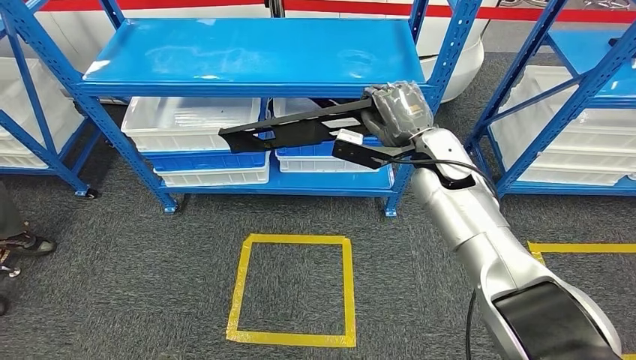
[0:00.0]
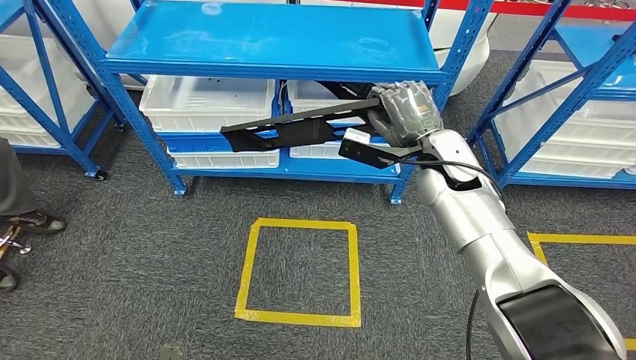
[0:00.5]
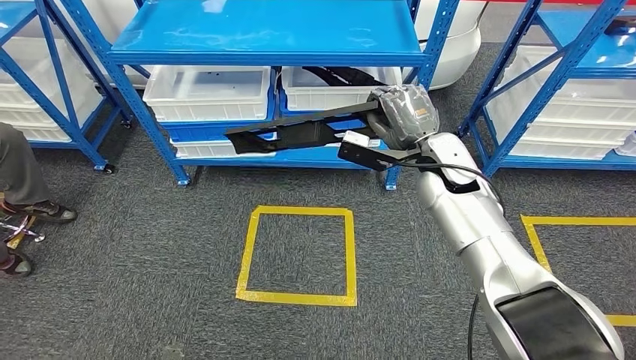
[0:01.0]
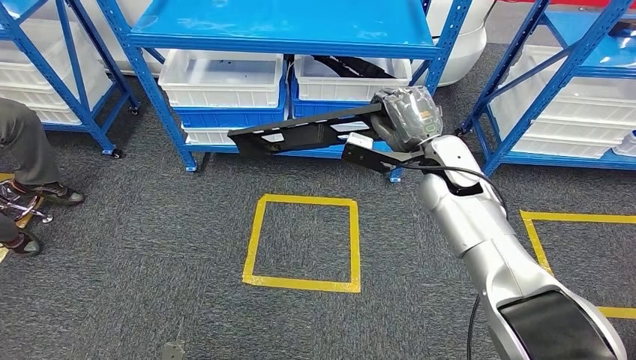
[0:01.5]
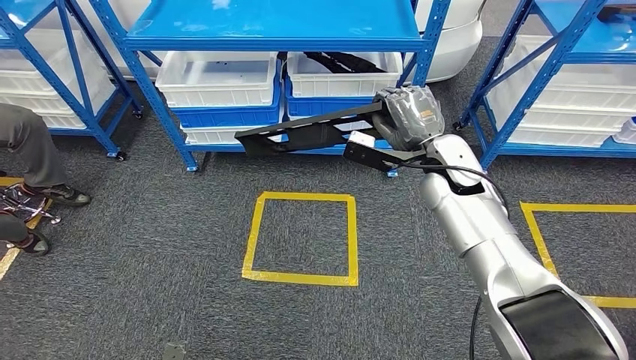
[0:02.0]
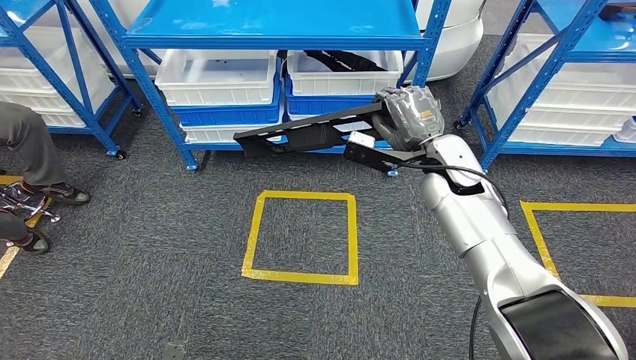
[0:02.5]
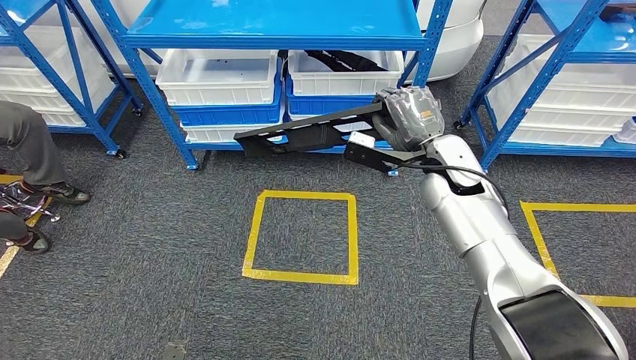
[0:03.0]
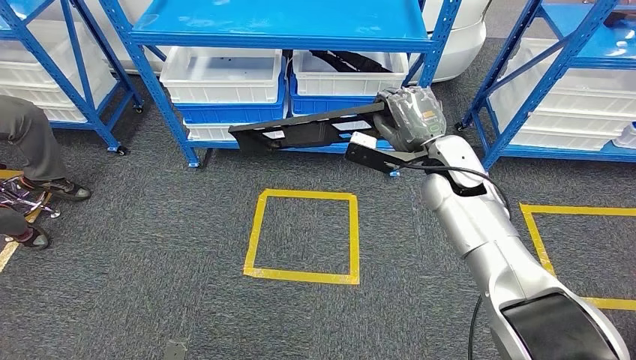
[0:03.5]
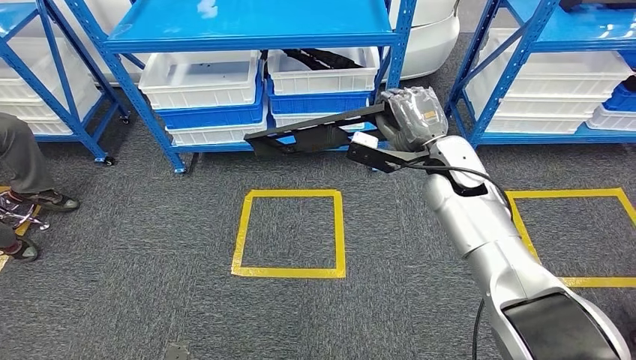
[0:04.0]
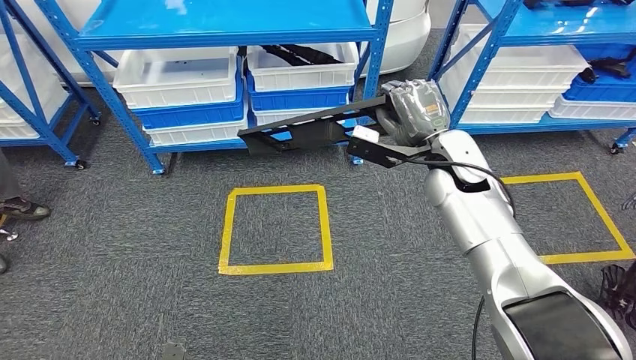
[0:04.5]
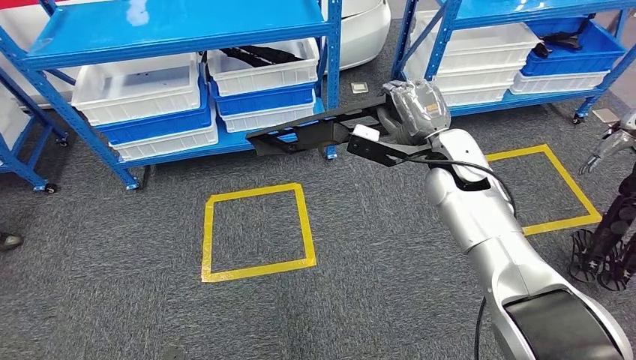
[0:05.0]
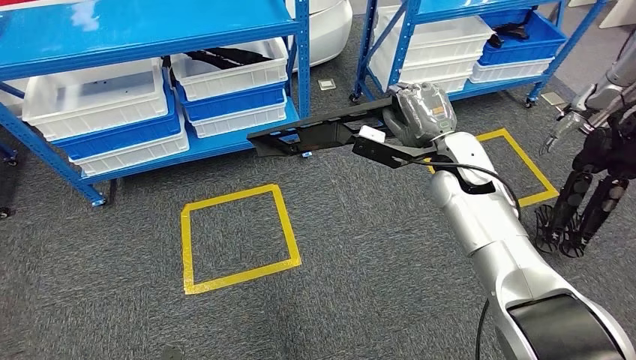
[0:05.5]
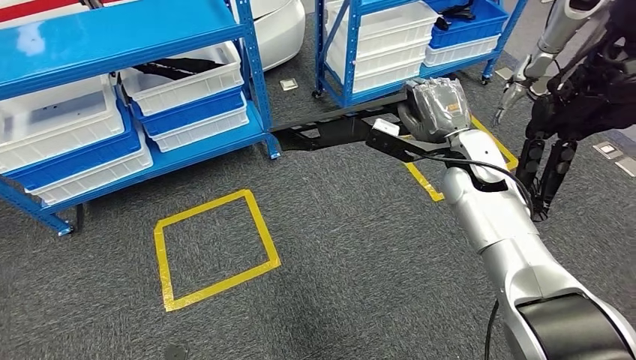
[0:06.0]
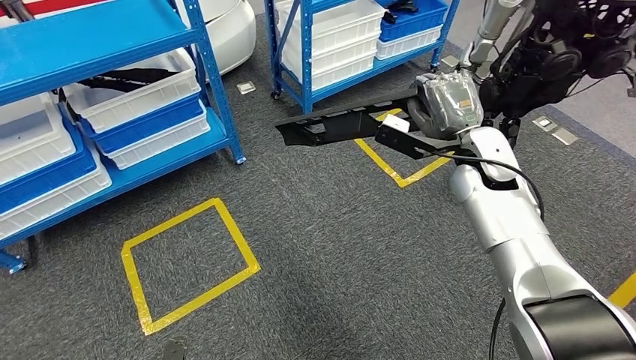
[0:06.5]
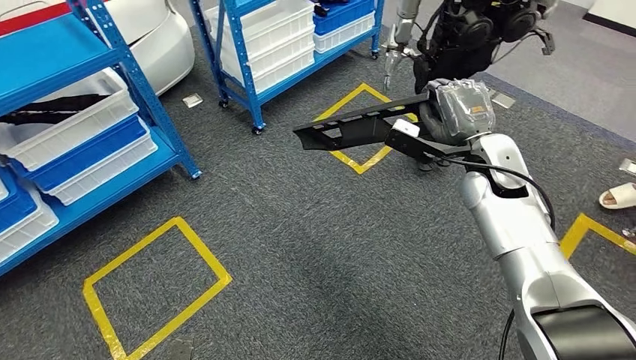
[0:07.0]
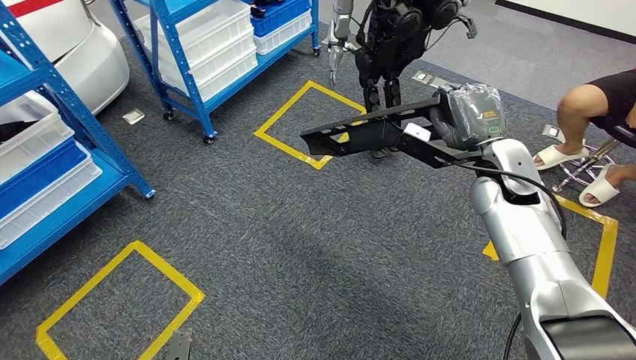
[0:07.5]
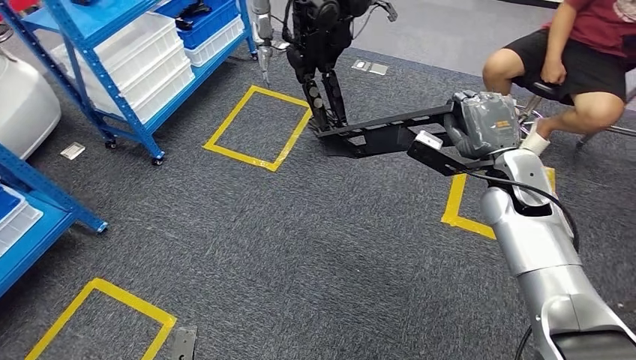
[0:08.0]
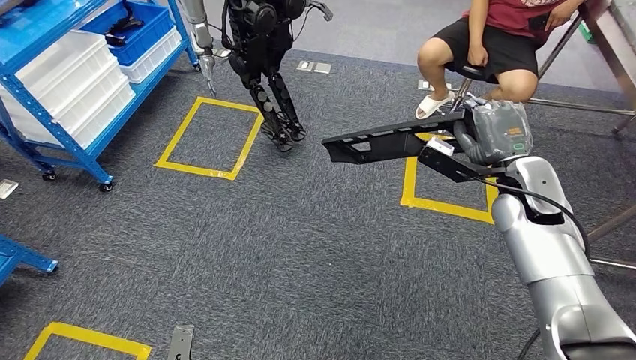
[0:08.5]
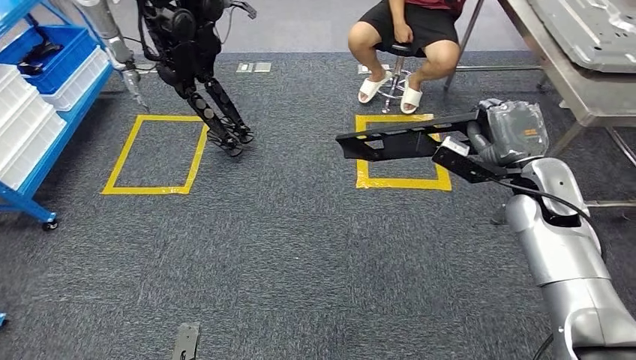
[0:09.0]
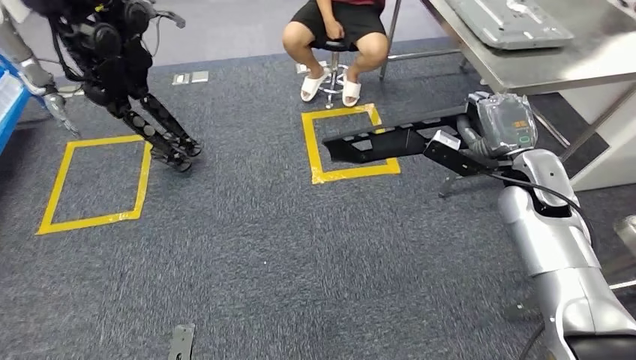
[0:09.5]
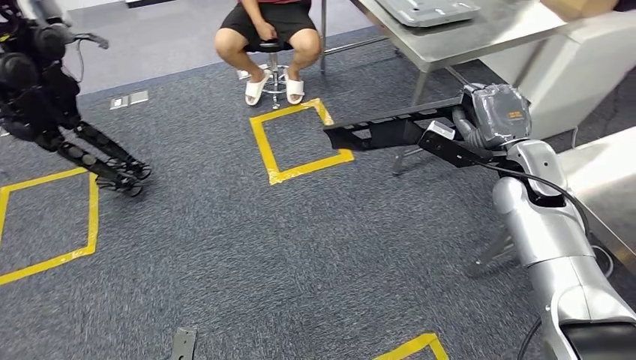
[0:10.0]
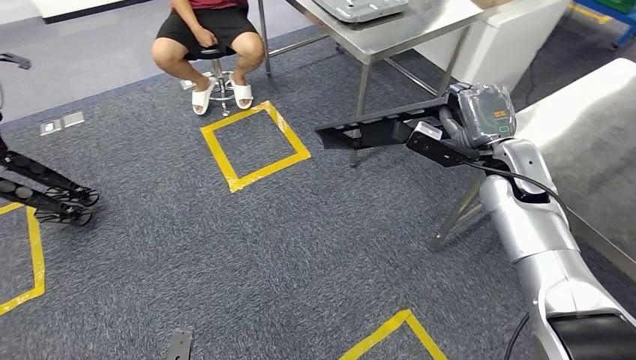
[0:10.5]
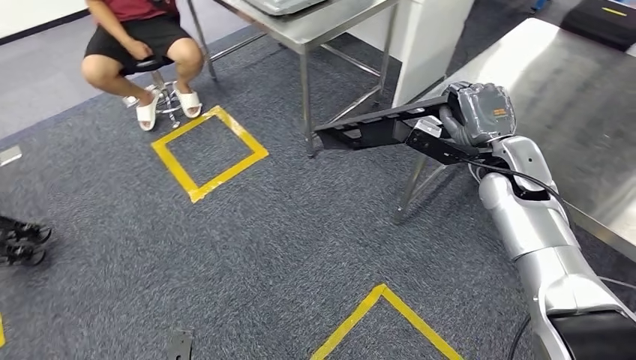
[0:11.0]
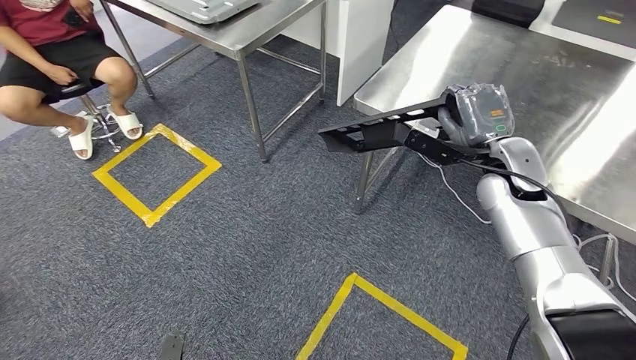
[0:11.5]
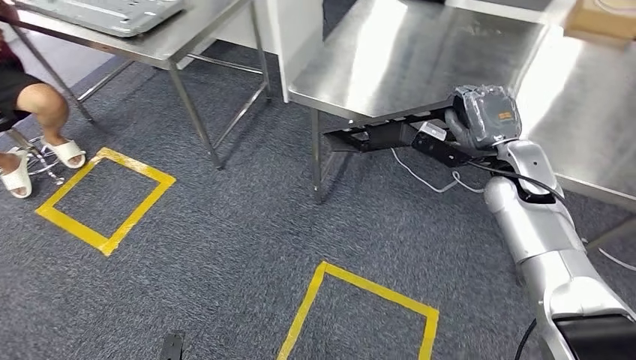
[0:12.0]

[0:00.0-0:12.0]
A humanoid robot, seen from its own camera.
Step, 0:00.0 to 0:02.0: Pick up the large material from the shelf.

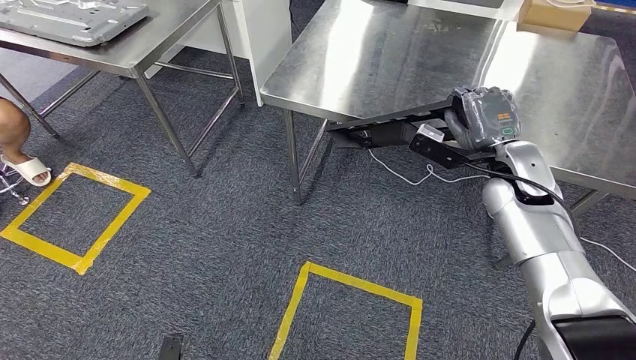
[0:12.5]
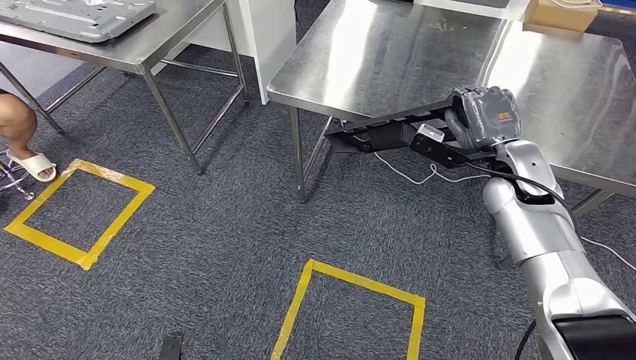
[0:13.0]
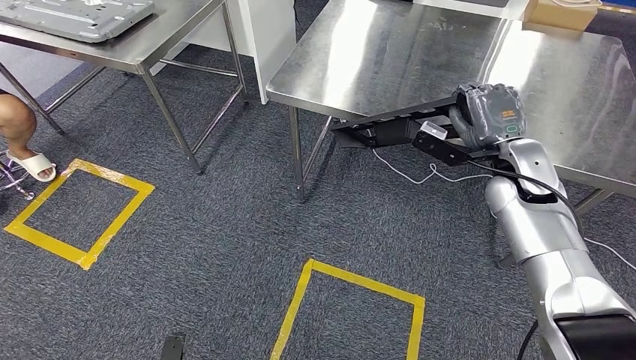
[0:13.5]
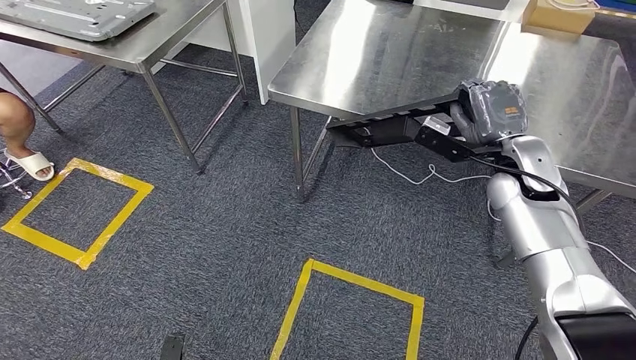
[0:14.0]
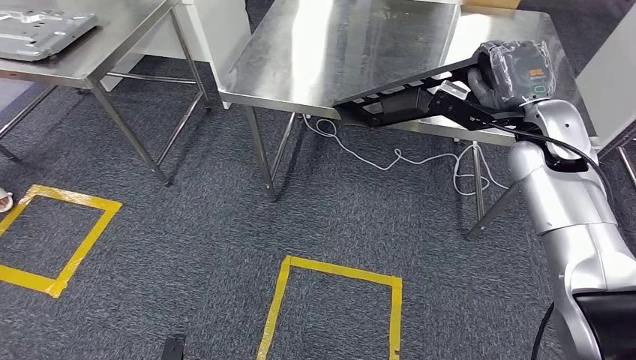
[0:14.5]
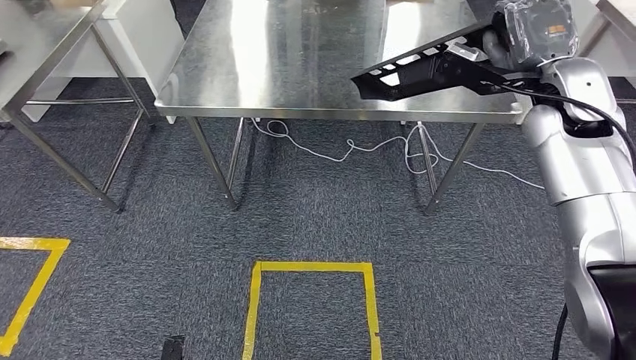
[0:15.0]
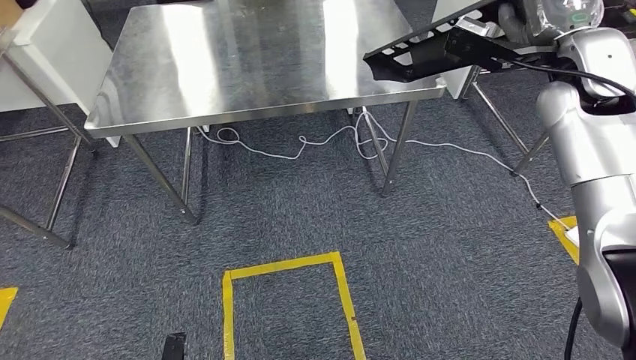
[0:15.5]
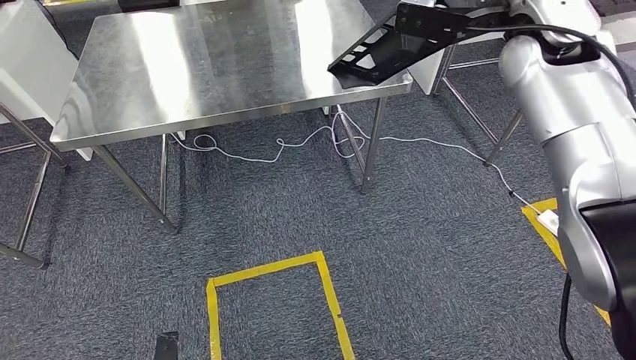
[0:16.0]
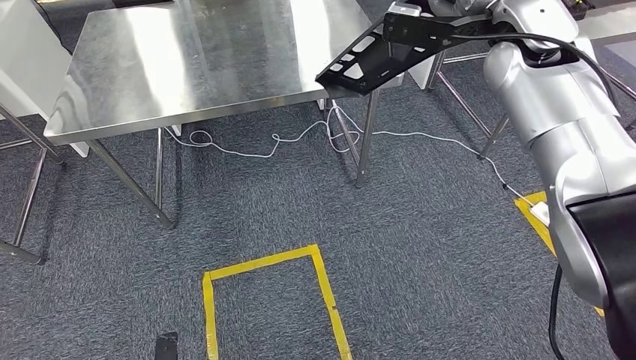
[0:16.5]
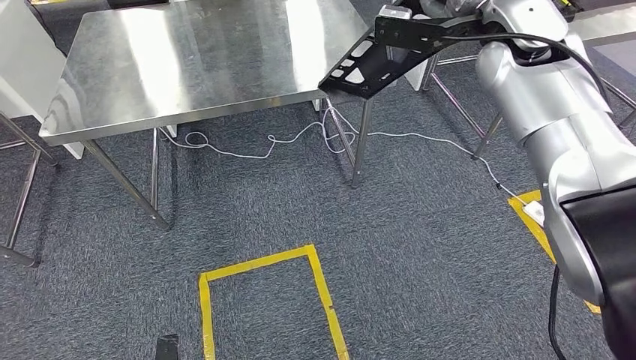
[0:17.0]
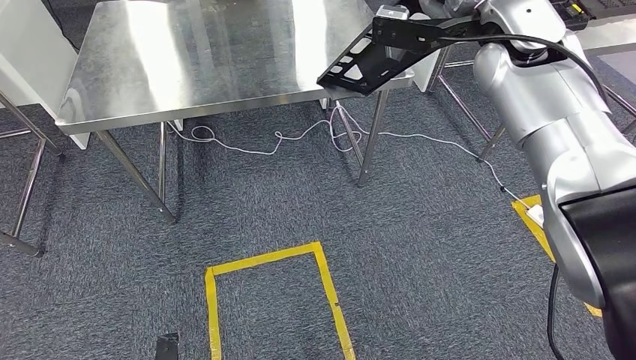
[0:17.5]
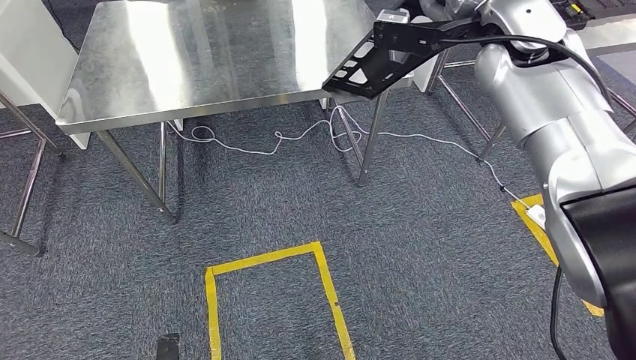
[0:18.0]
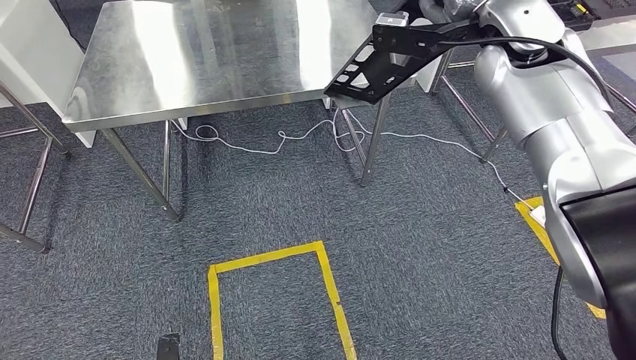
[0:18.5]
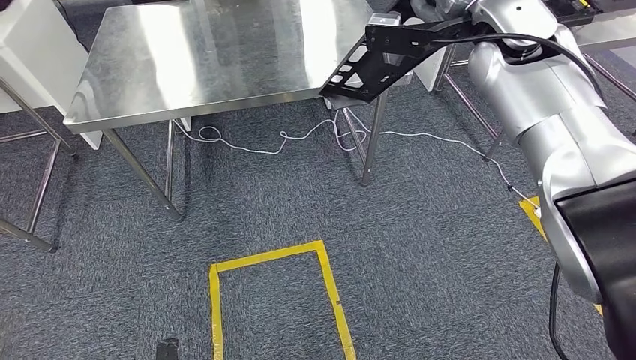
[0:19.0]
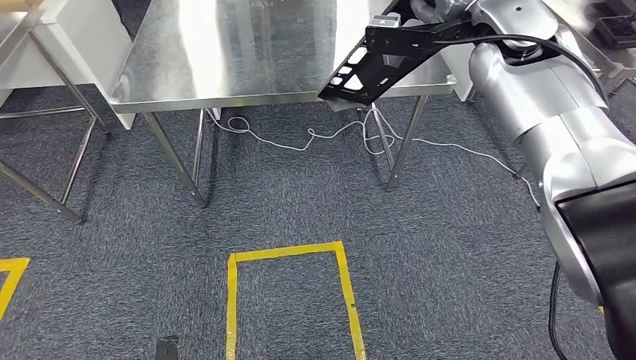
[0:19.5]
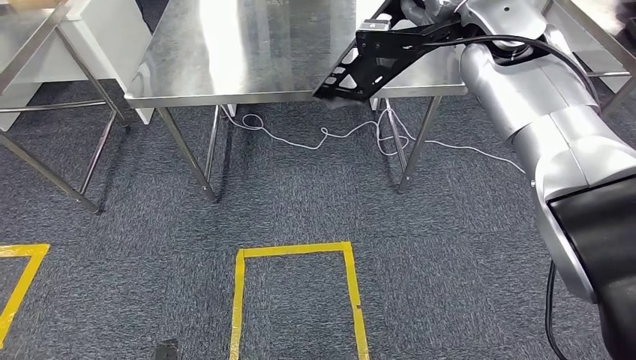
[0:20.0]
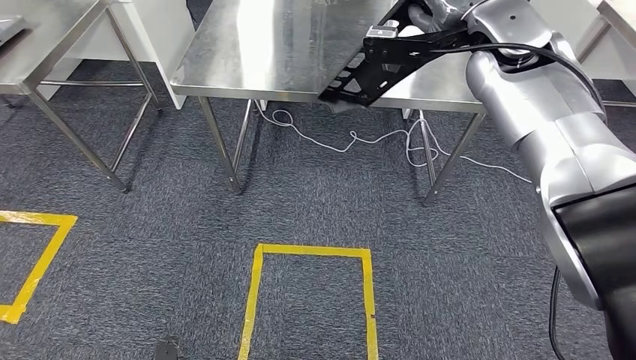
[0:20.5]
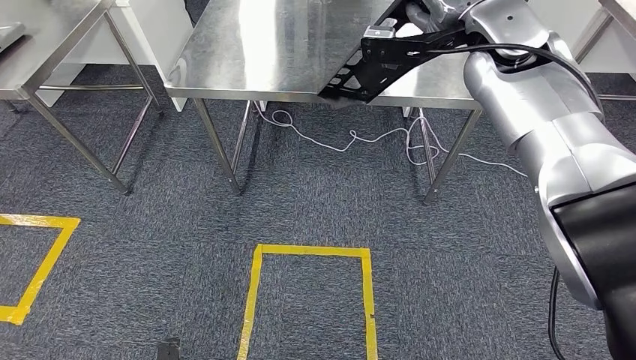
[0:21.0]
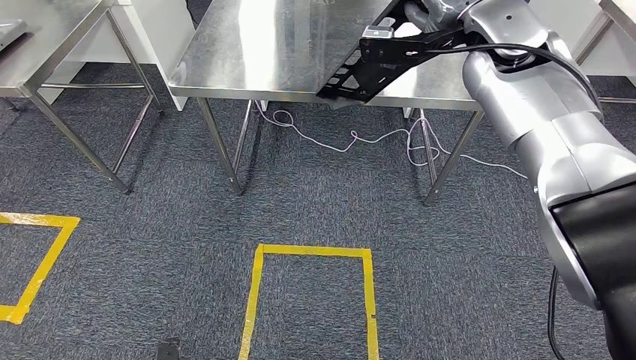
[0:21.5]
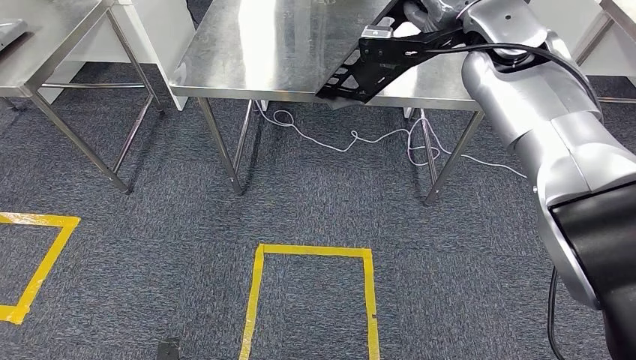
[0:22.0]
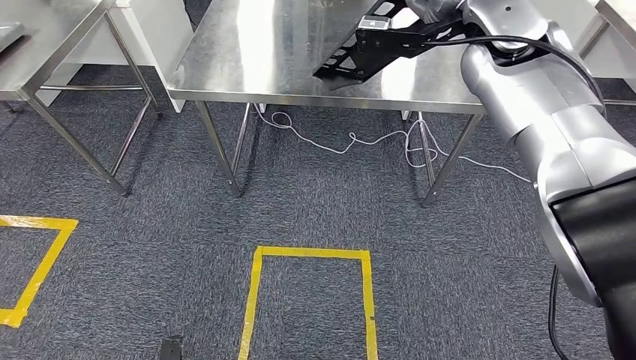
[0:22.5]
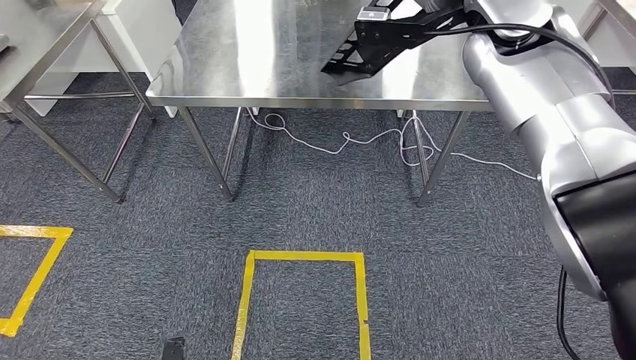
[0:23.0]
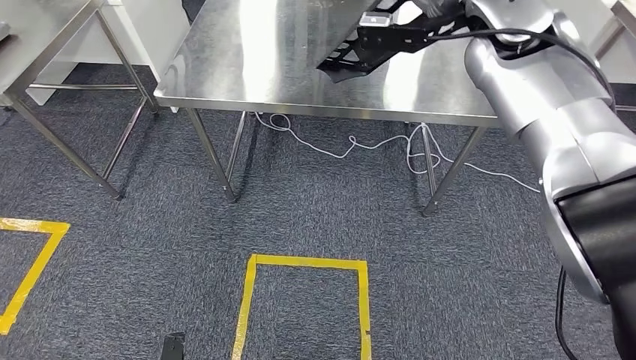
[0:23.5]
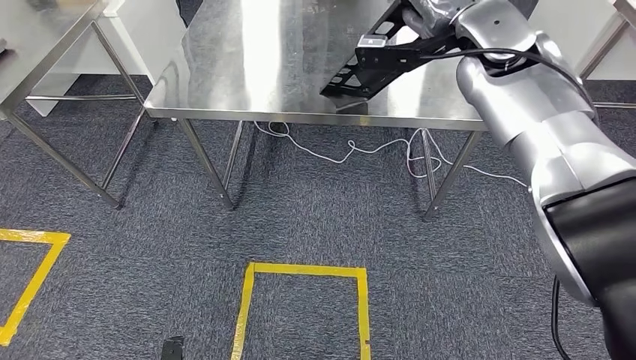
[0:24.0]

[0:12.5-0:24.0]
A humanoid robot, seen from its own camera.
Step, 0:12.5 to 0:20.5: Move the large material to the workbench.
